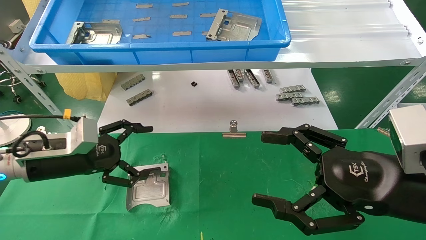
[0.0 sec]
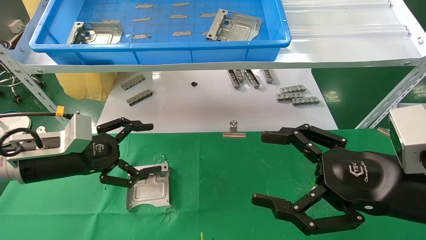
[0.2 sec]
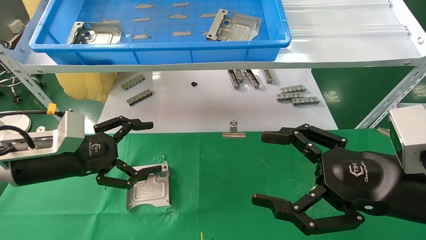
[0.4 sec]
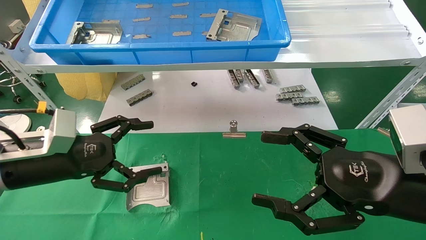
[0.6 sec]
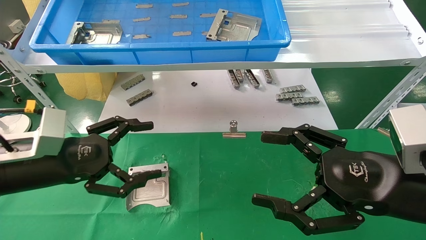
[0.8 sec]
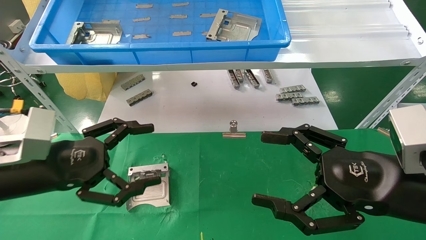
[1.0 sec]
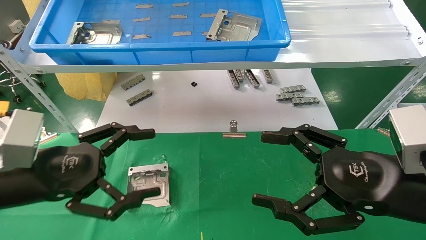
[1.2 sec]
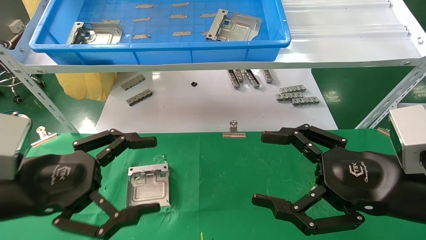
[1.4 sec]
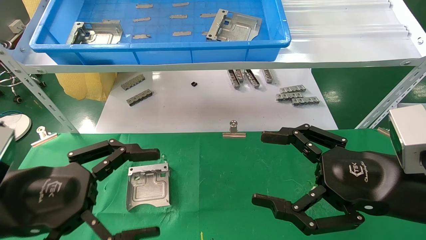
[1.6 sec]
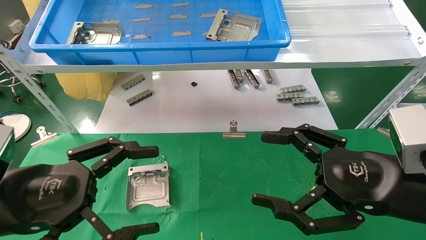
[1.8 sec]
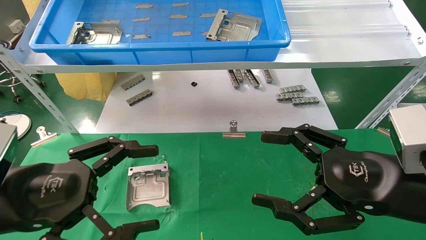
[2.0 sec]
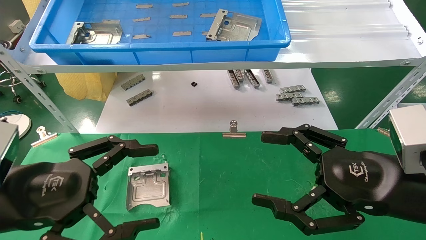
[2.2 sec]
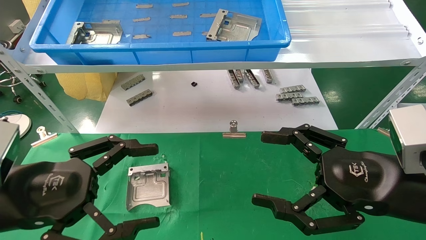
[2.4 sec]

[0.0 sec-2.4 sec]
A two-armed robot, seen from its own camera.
Task of the whole recording: use the mechanical arm to pick up the parts and place them on the table.
0.0 sec to 1.2 sec: The left gripper is displaced backward by about 10 cm.
1.2 sec to 2.4 sec: The grippers make only small movements.
